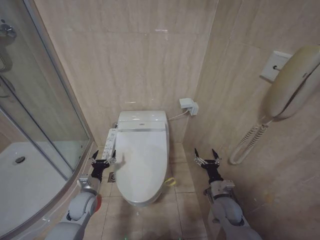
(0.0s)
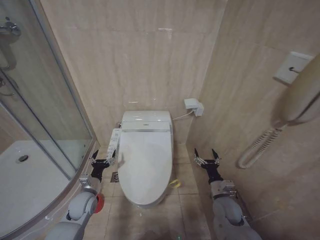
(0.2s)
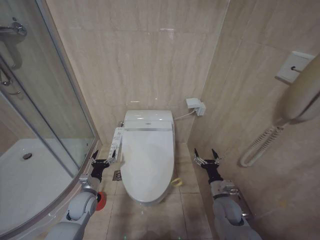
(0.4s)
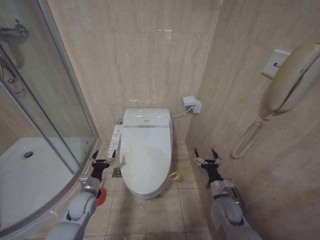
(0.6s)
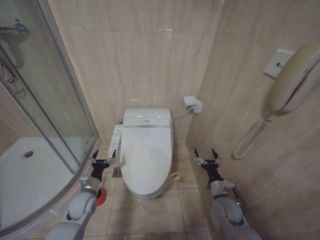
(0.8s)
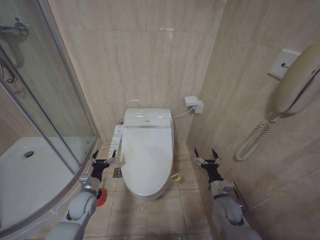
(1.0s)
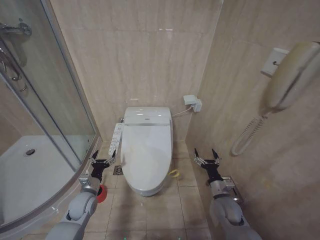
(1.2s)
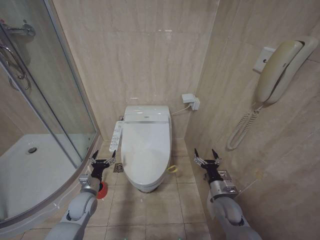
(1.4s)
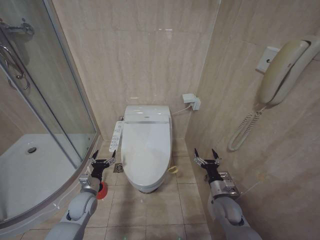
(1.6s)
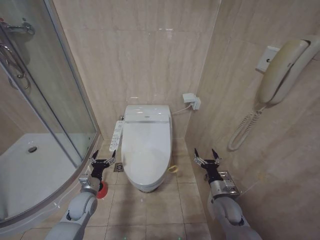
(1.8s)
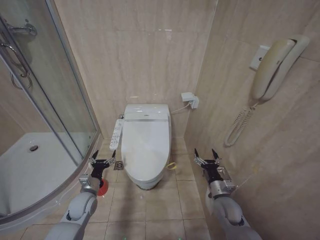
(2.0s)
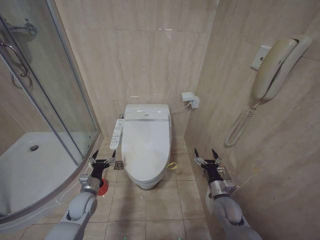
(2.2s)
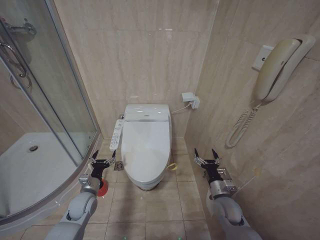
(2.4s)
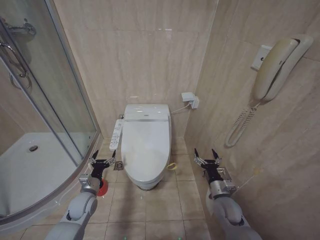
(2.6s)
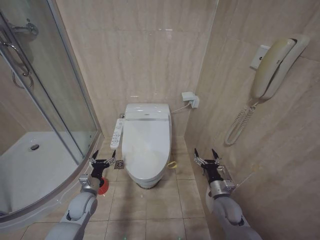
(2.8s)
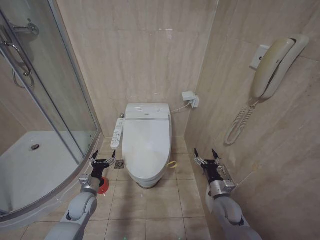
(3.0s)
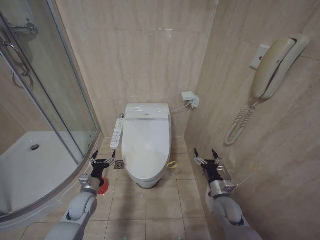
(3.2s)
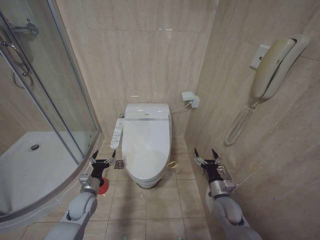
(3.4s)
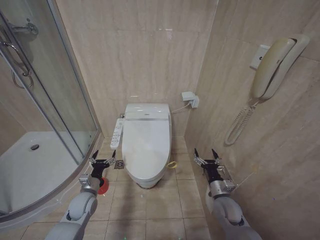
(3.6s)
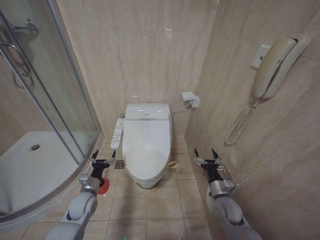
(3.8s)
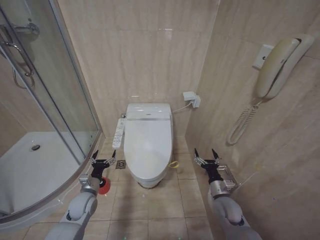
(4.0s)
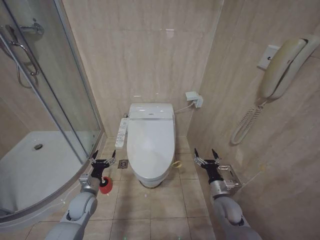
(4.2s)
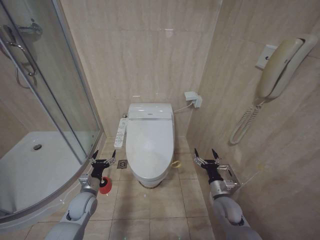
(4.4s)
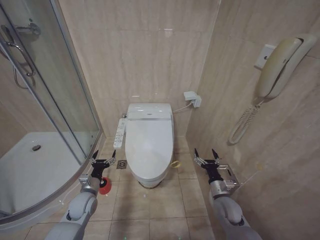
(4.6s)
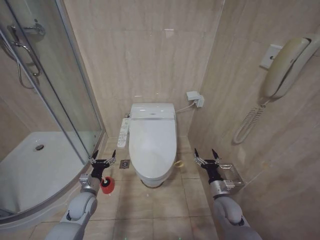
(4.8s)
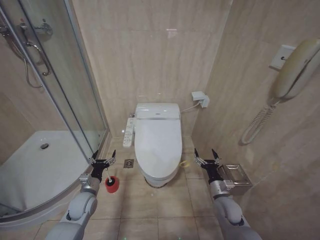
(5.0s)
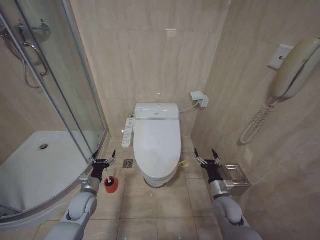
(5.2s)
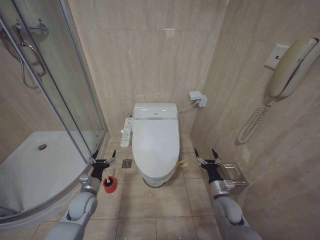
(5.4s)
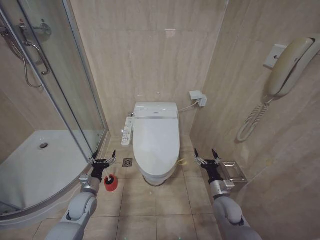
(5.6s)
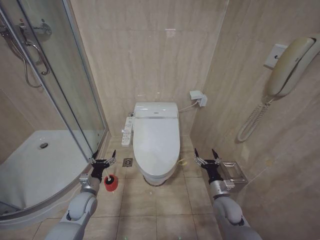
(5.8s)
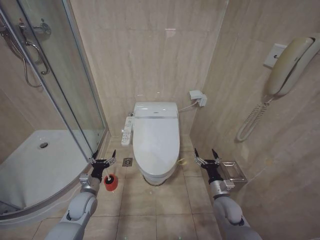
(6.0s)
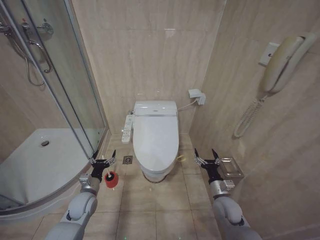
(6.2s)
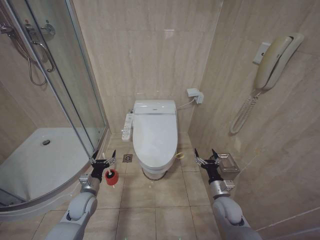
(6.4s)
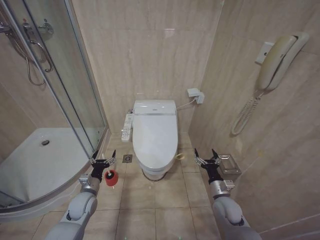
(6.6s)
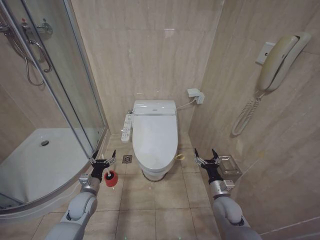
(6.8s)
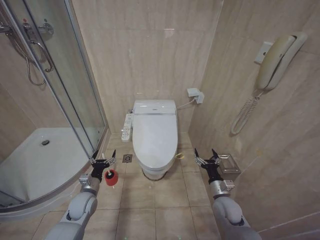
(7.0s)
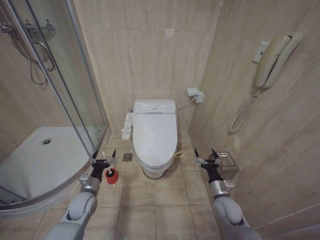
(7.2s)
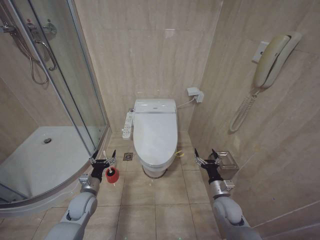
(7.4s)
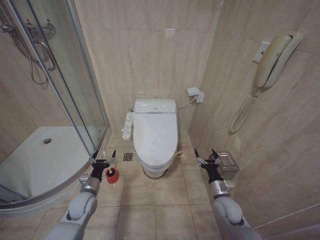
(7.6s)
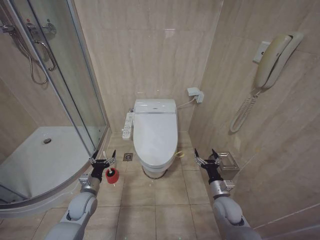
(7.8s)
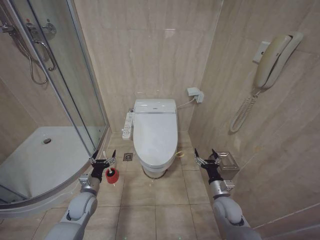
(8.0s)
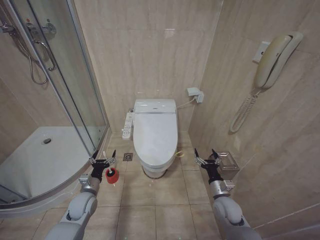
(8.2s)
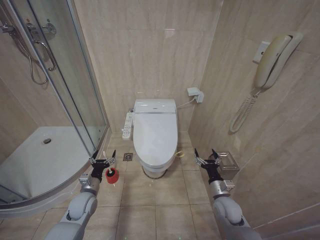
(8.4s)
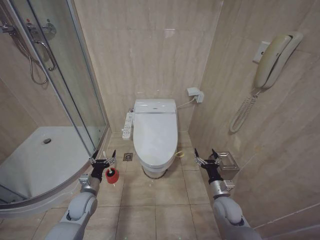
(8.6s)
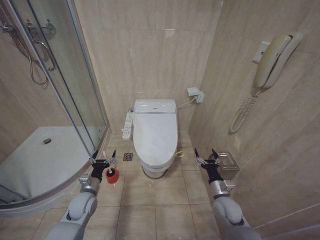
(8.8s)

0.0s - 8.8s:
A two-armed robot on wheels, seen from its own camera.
Task of the whole recording: Open the toilet lid, clean the toilet bowl with a toilet brush, close the toilet lid, and flush.
0.0s - 8.8s: Neither gripper changes place.
